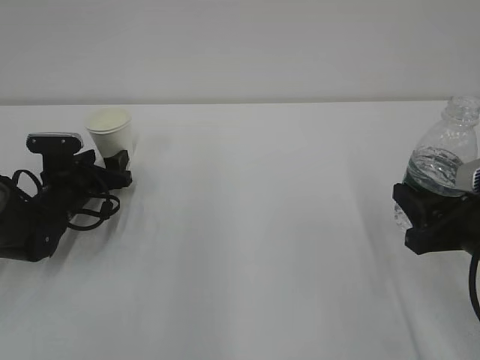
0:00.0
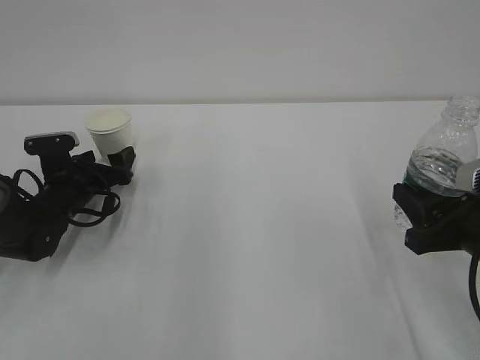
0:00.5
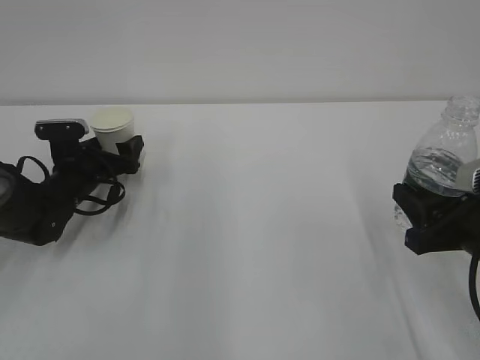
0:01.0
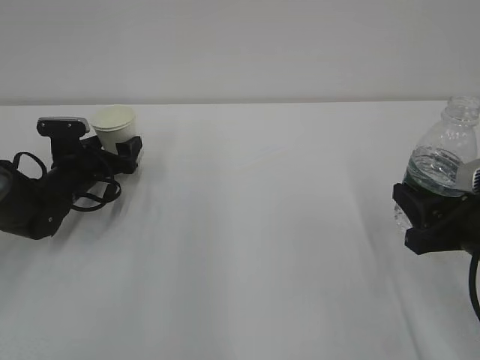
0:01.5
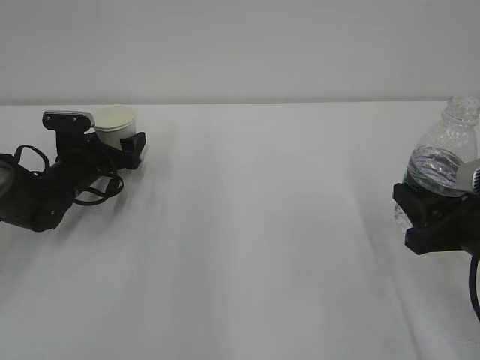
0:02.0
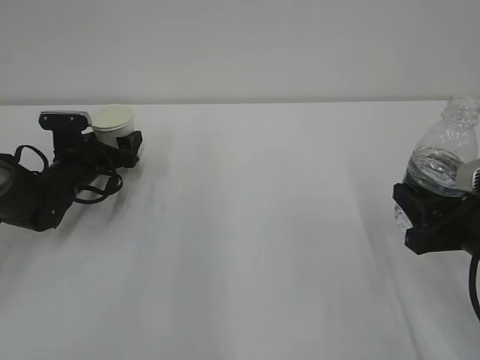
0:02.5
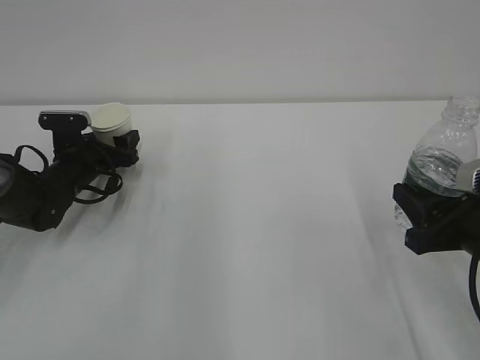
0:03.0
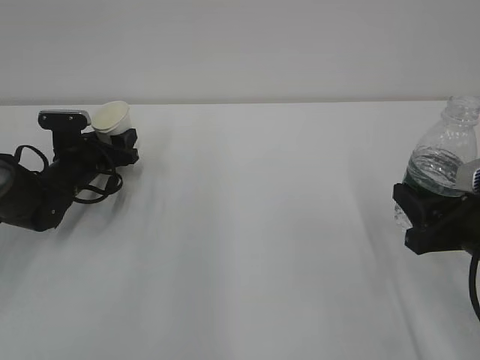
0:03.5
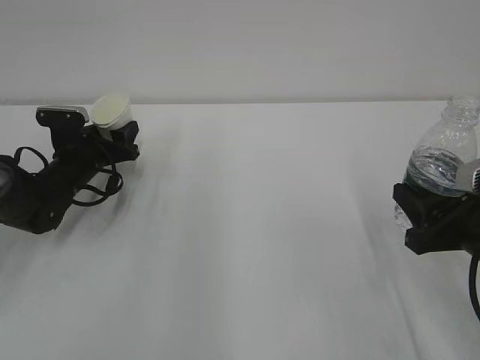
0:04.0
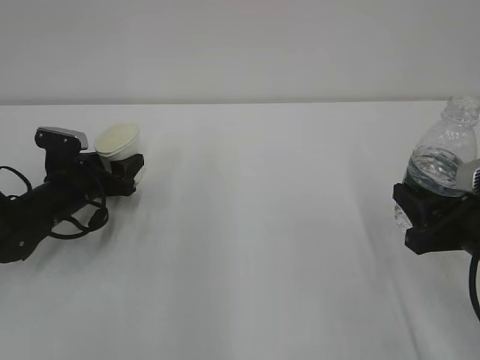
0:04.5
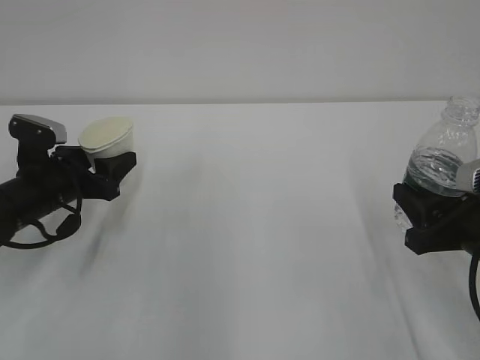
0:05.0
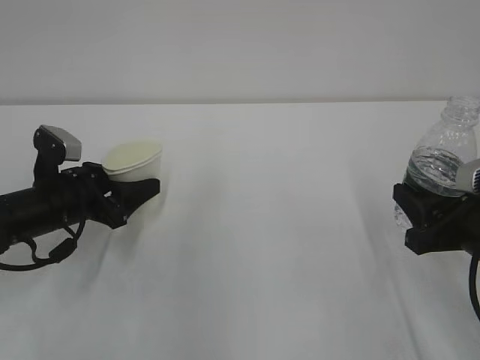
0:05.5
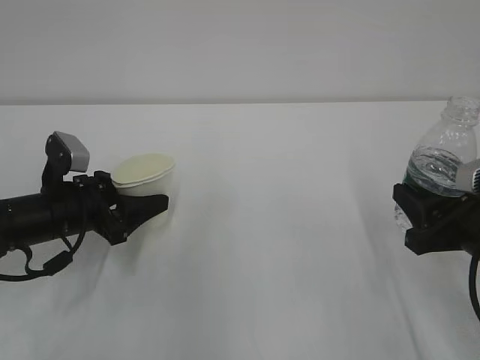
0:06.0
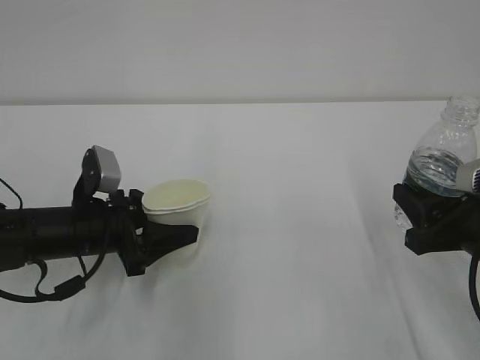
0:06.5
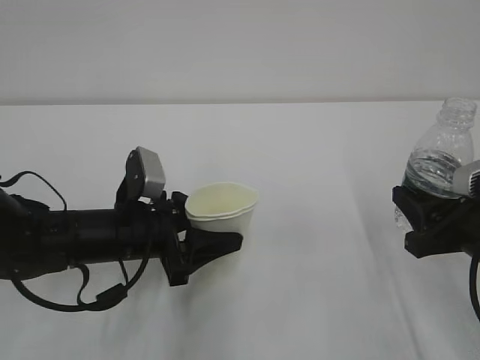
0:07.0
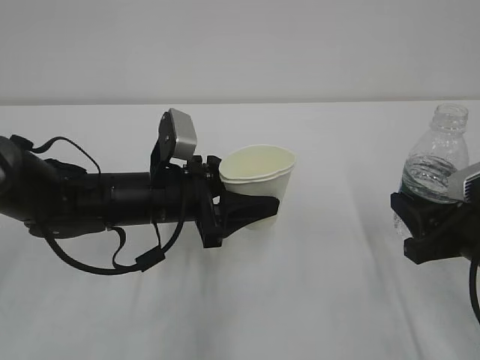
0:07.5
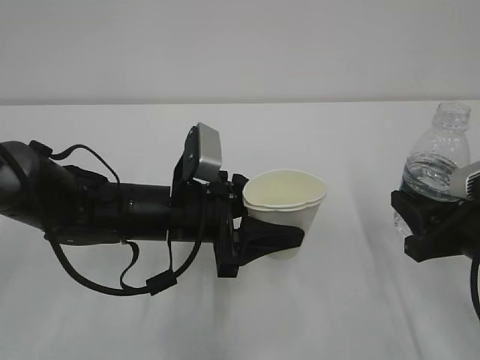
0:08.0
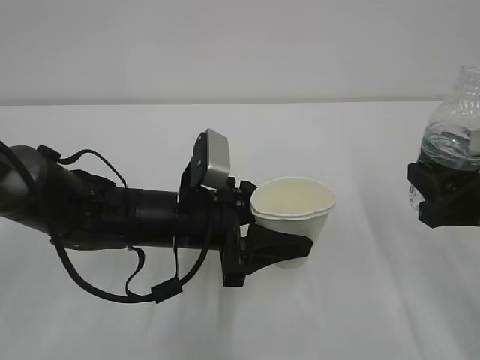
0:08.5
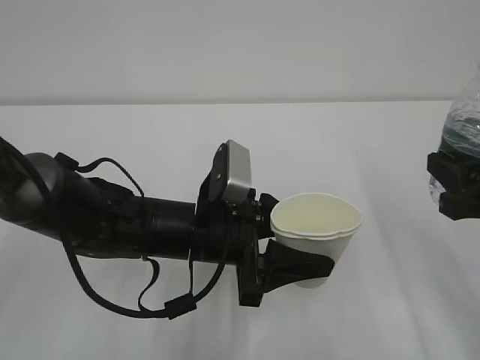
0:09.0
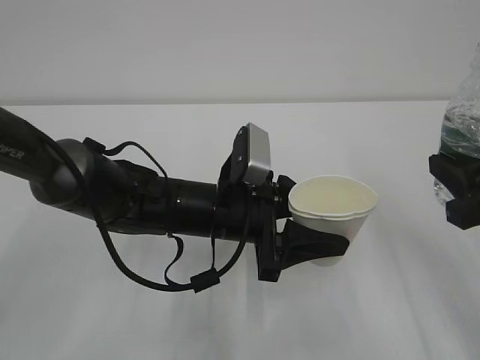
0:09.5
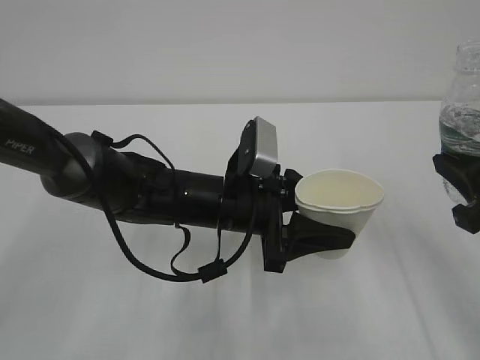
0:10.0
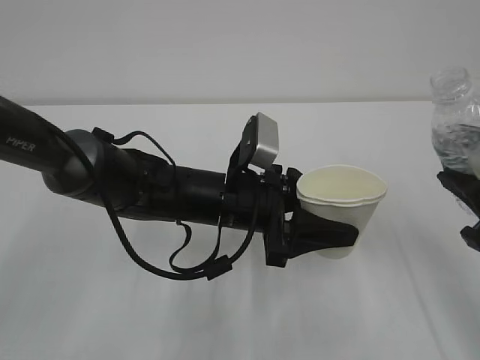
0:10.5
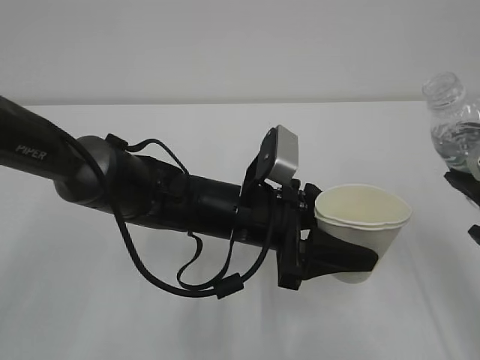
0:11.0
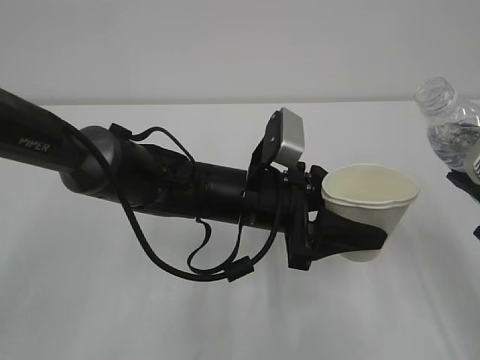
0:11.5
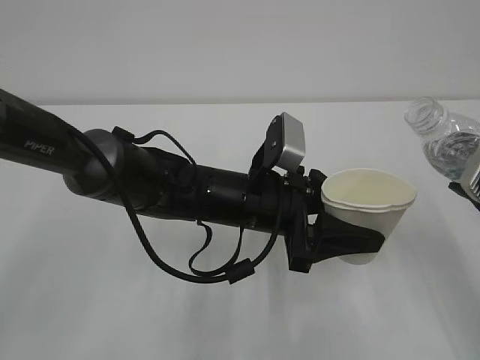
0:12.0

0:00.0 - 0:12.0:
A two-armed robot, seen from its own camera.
0:00.0 - 0:02.0: The left gripper opens.
0:02.0 - 0:04.0: The left gripper closes its fingers.
0:04.0 - 0:06.0: The left gripper is displaced backward by approximately 15 cm.
0:06.0 - 0:08.0: The left gripper heads to the right, covering approximately 15 cm.
0:08.0 - 0:10.0: The left gripper heads to the right, covering roughly 5 cm, while the right gripper goes some 10 cm upward.

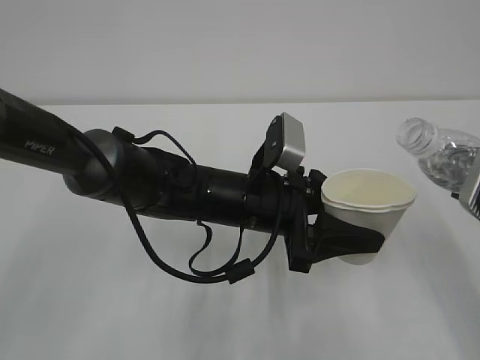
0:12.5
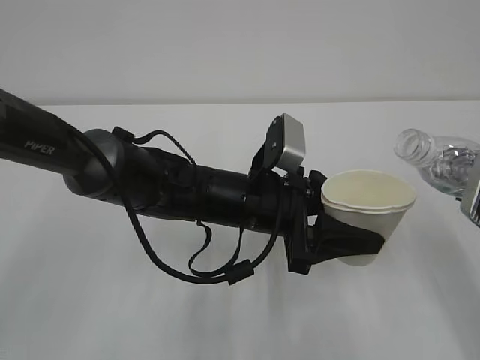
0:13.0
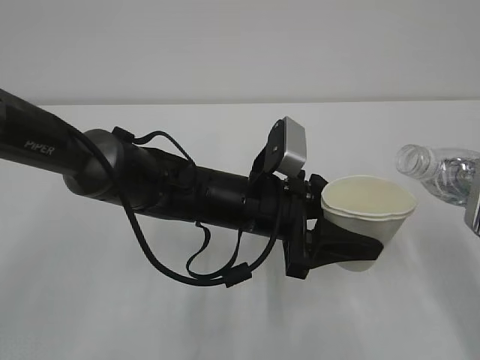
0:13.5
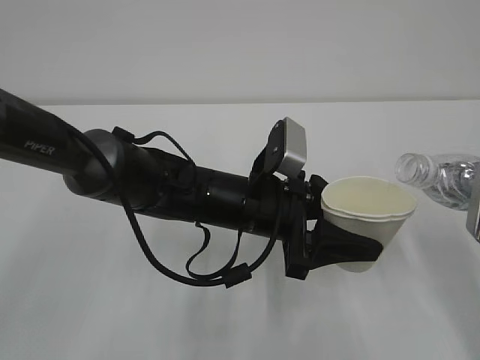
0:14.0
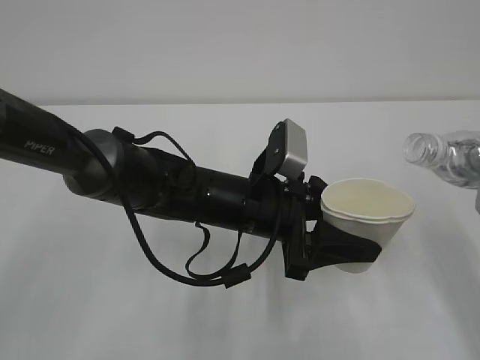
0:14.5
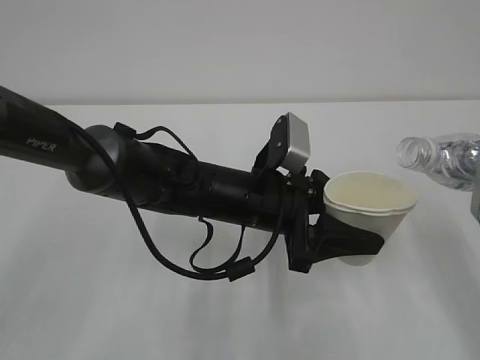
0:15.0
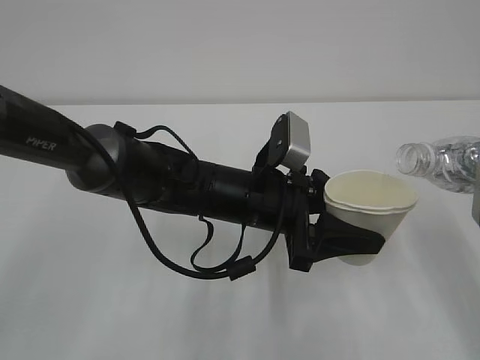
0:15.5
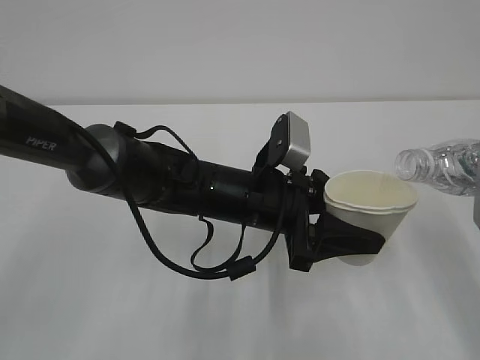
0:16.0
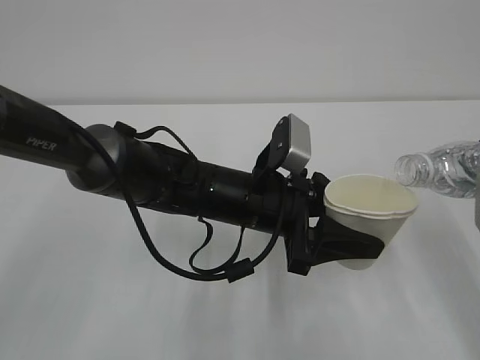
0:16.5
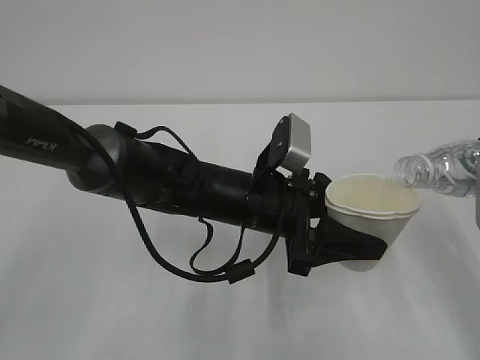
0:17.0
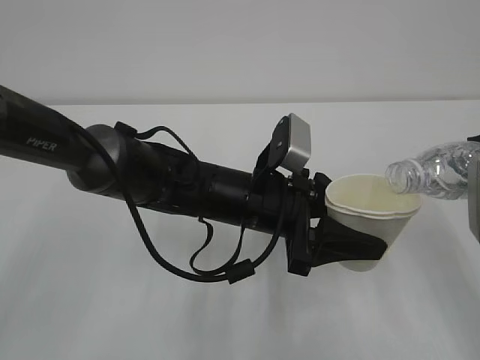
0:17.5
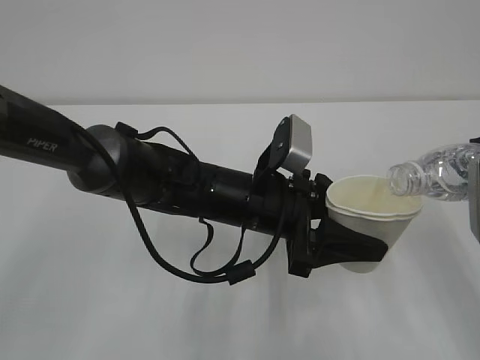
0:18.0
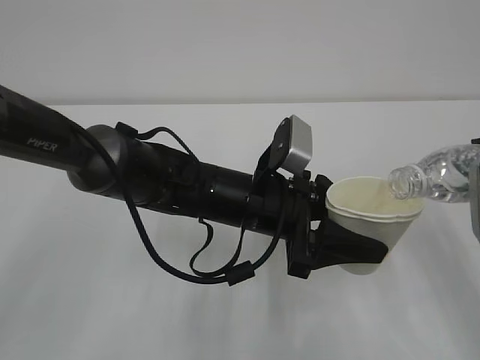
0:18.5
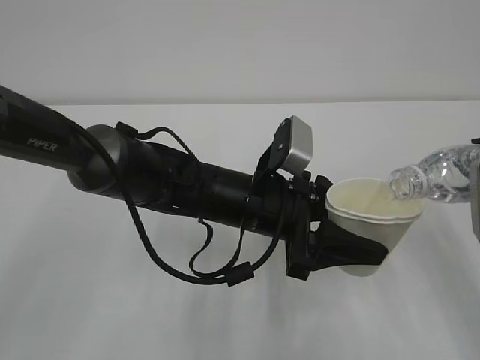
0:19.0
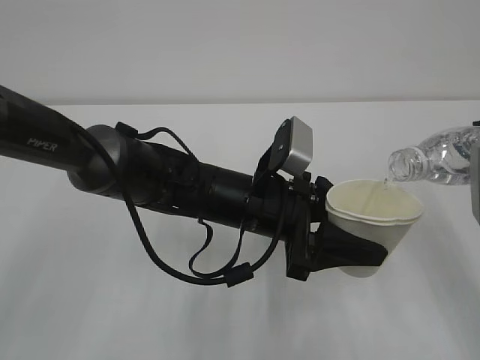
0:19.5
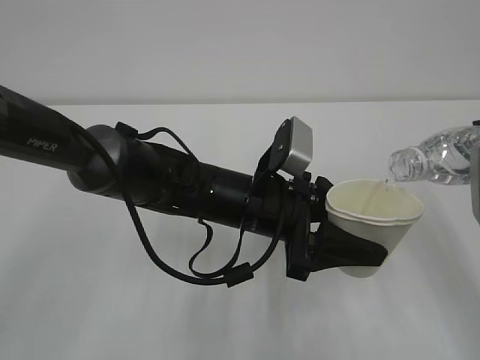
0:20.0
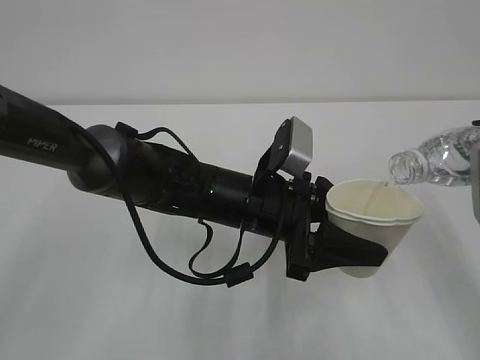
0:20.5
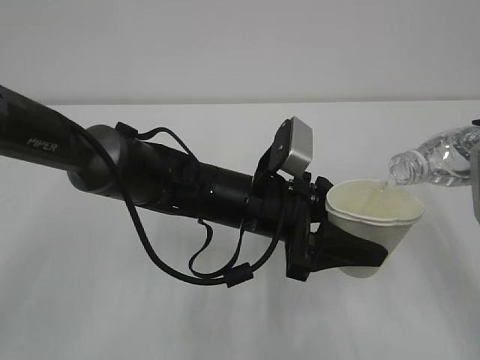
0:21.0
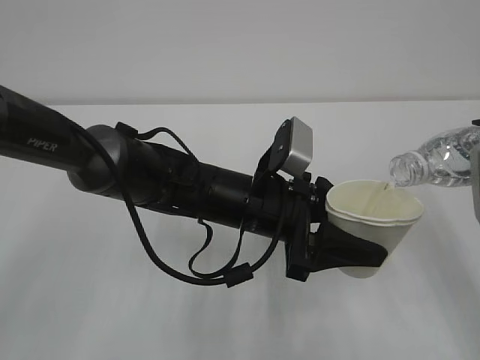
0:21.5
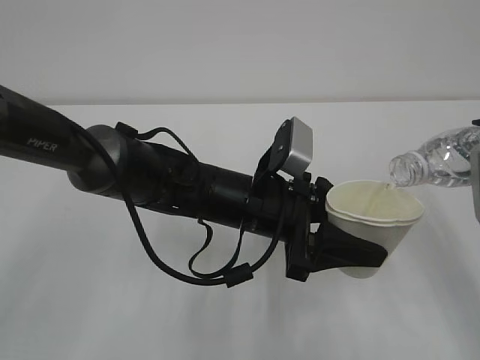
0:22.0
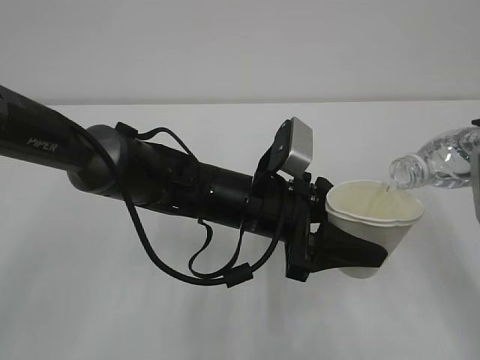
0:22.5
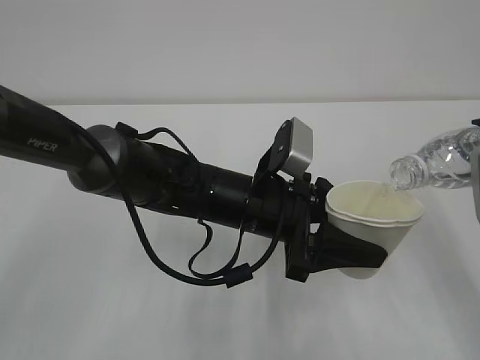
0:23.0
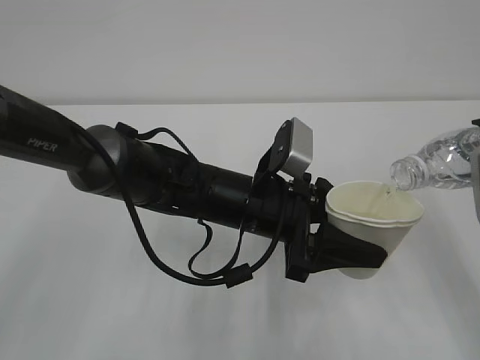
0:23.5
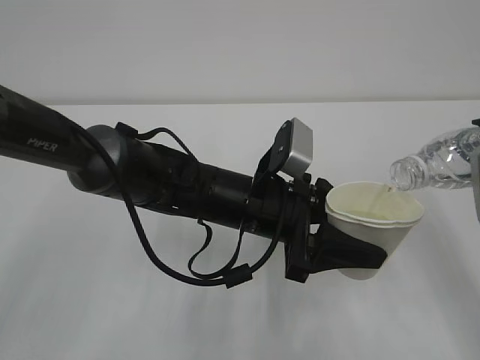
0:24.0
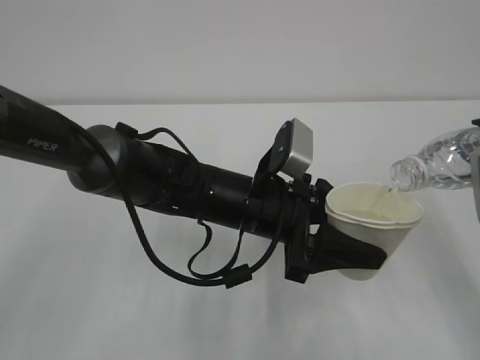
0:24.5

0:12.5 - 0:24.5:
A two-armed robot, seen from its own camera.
0:12.5 - 0:14.5: The grippers make only small movements.
0:14.5 - 0:18.5: The grippers move only a little.
0:18.5 - 0:20.5: Neither gripper changes place.
0:20.5 - 0:24.5: The two grippers keep their place.

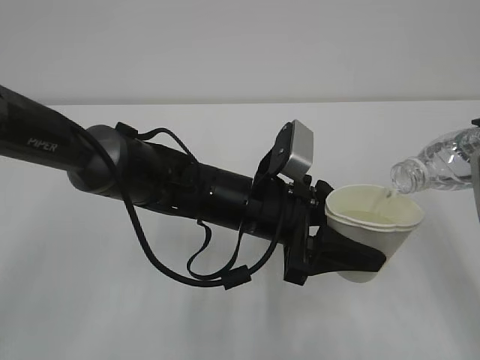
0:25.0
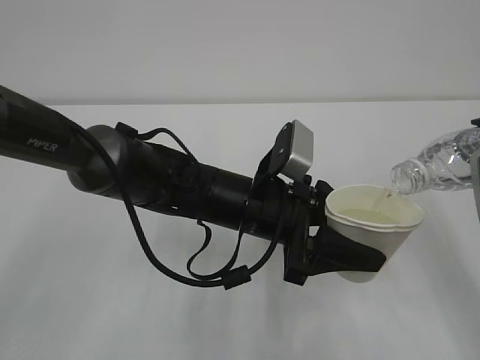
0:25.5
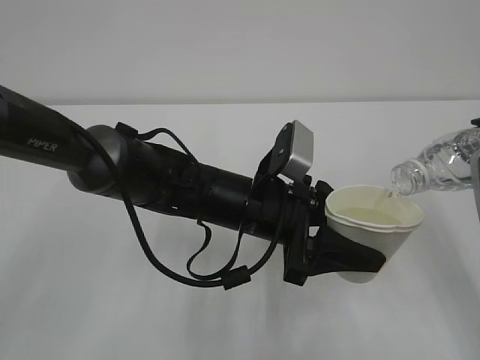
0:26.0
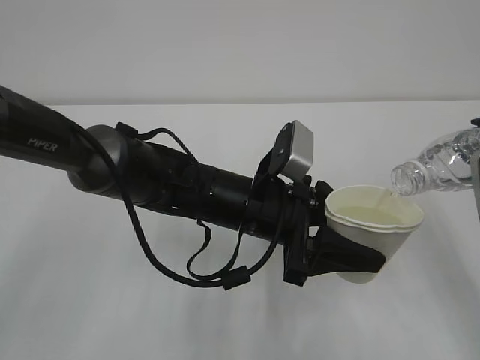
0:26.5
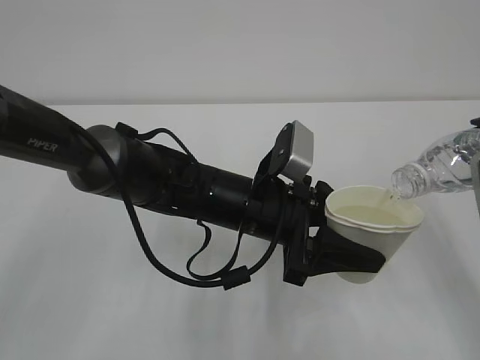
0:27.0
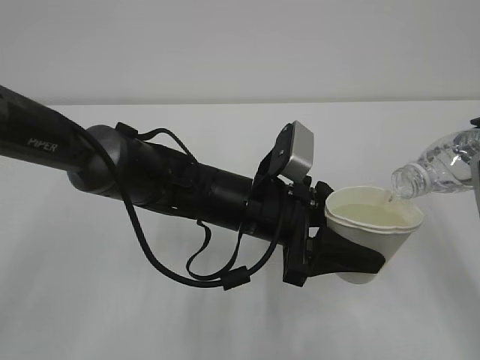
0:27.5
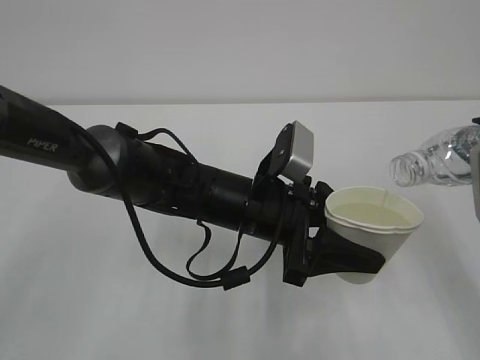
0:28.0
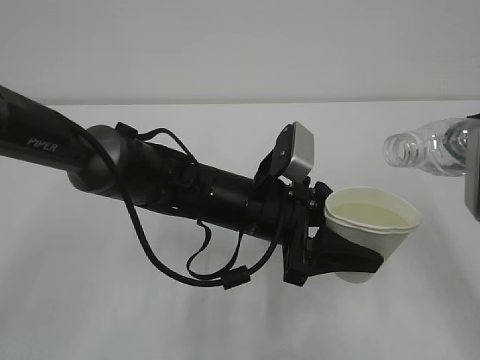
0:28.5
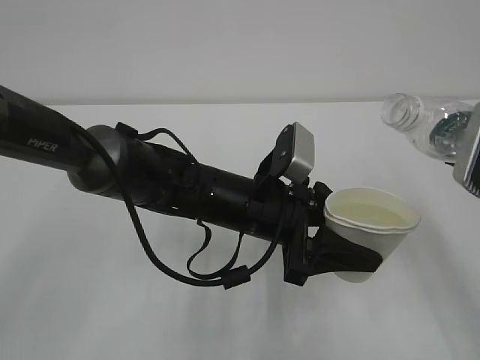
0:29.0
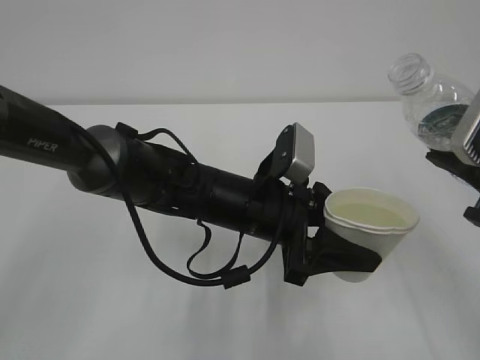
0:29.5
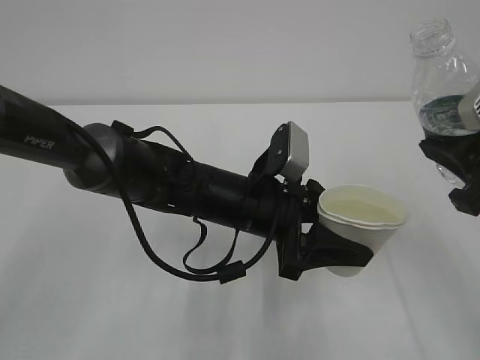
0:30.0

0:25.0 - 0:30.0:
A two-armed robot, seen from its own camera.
0:25.0 - 0:27.5: Neither gripper changes place.
